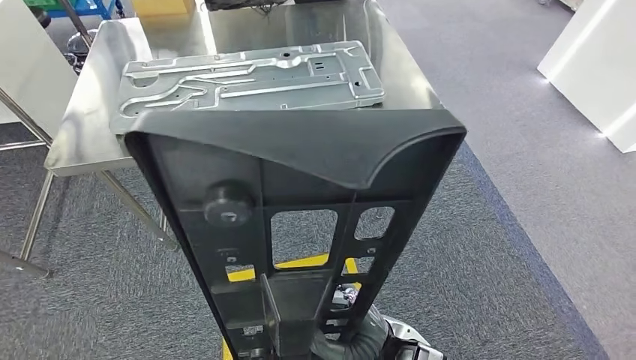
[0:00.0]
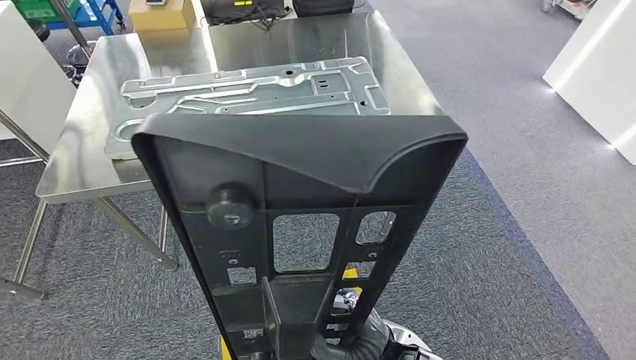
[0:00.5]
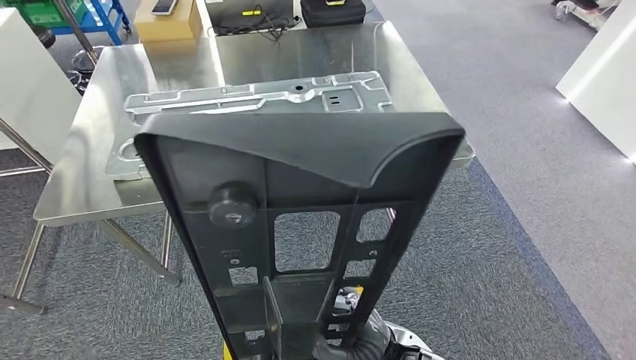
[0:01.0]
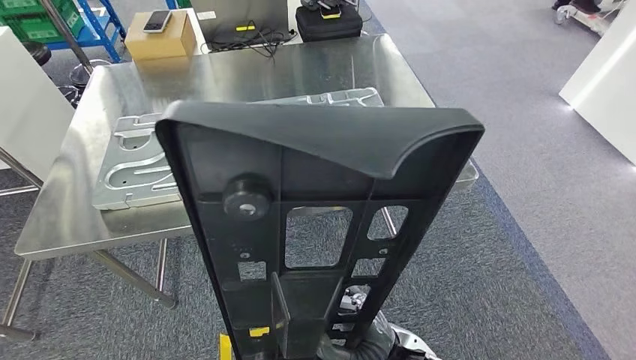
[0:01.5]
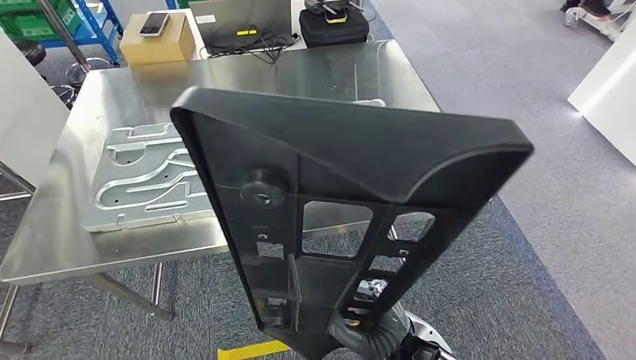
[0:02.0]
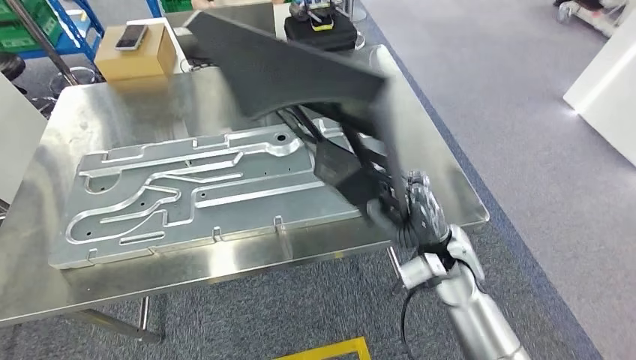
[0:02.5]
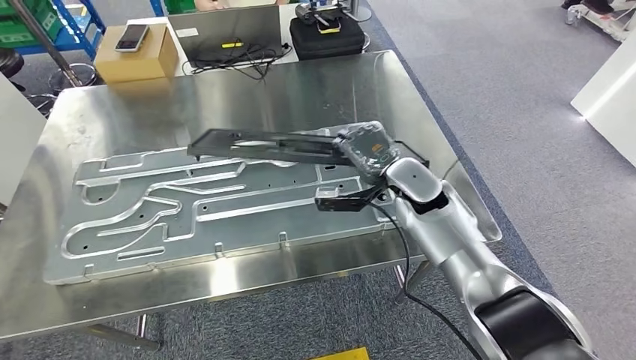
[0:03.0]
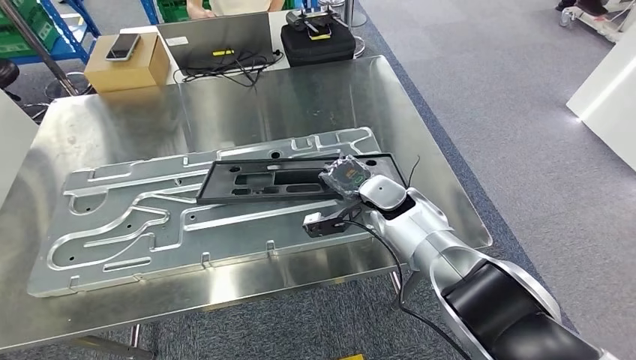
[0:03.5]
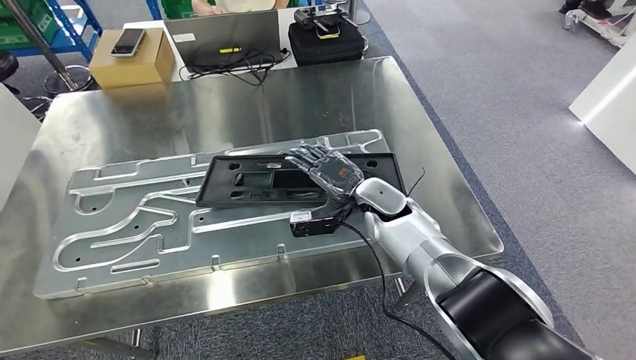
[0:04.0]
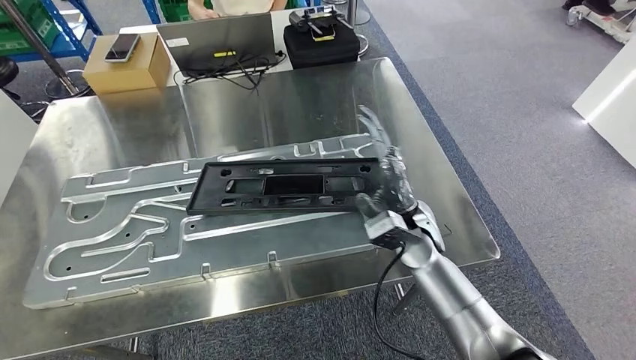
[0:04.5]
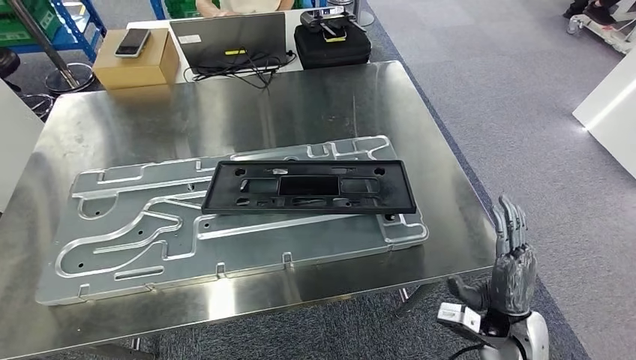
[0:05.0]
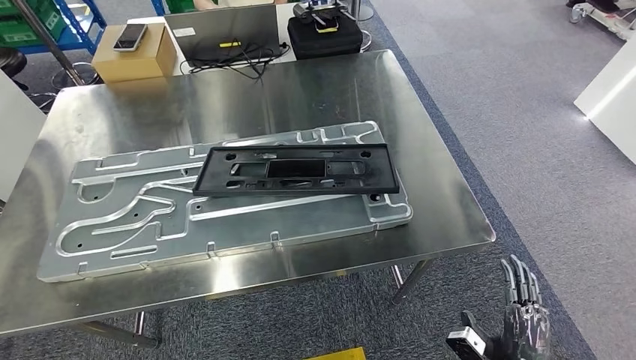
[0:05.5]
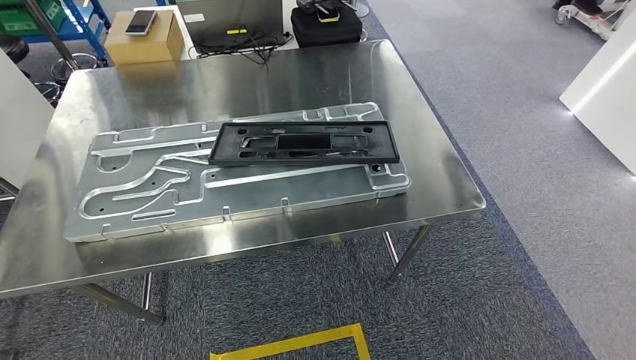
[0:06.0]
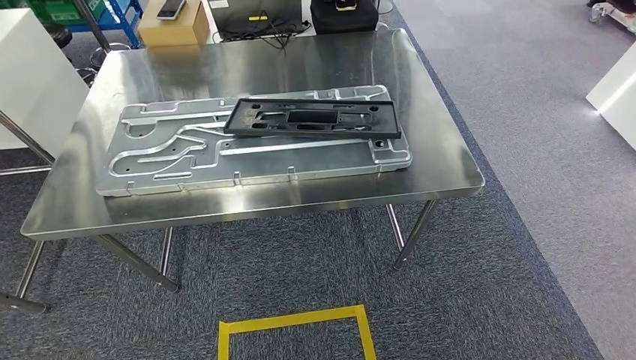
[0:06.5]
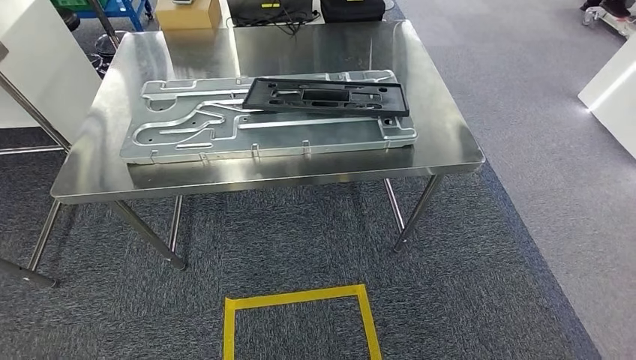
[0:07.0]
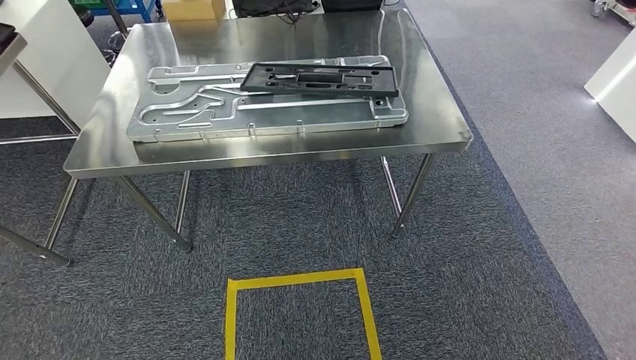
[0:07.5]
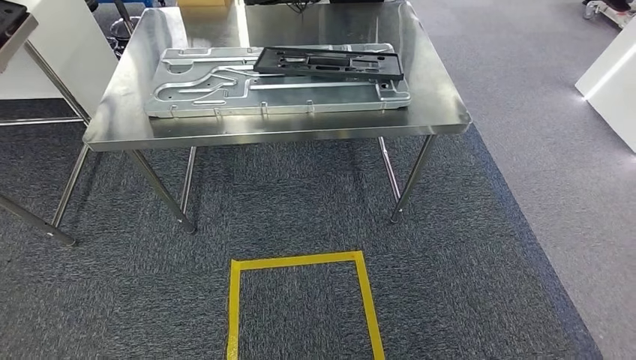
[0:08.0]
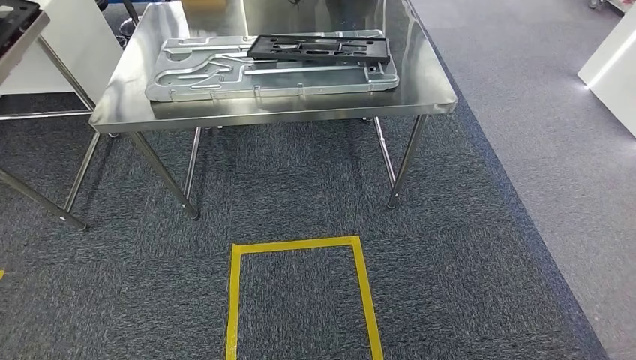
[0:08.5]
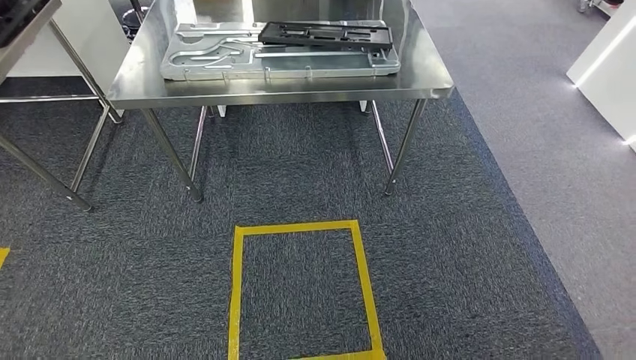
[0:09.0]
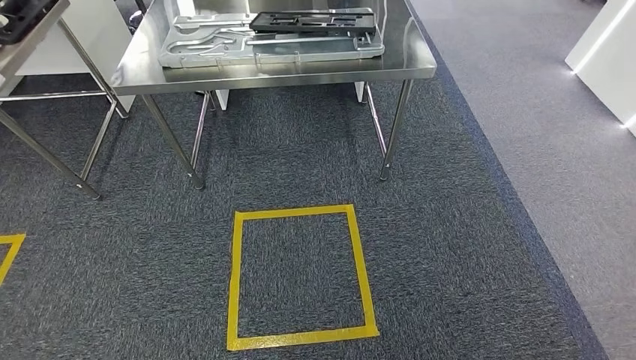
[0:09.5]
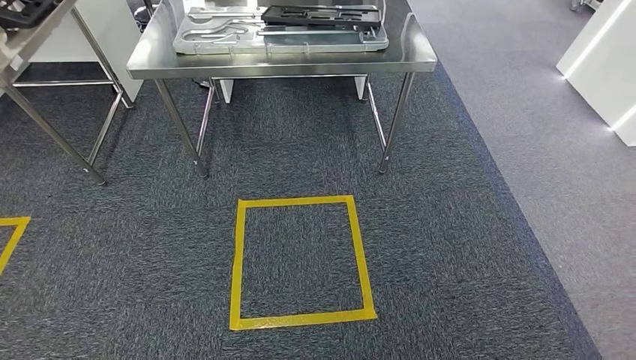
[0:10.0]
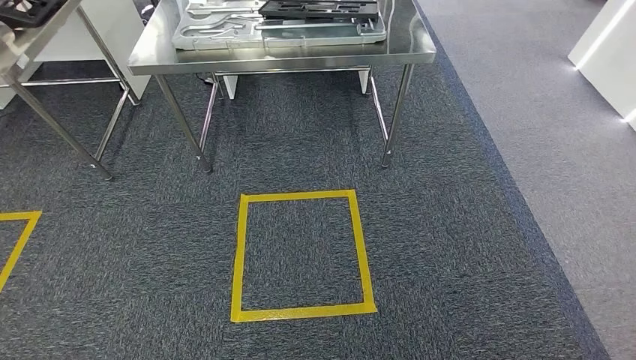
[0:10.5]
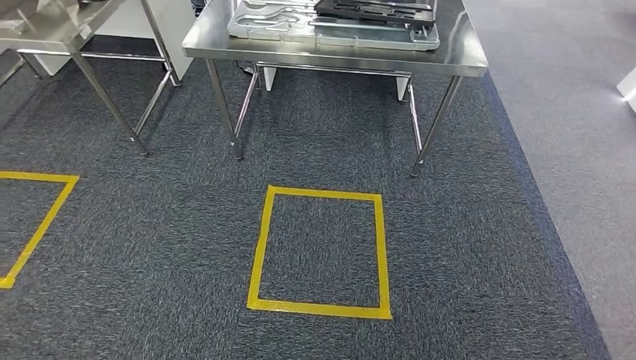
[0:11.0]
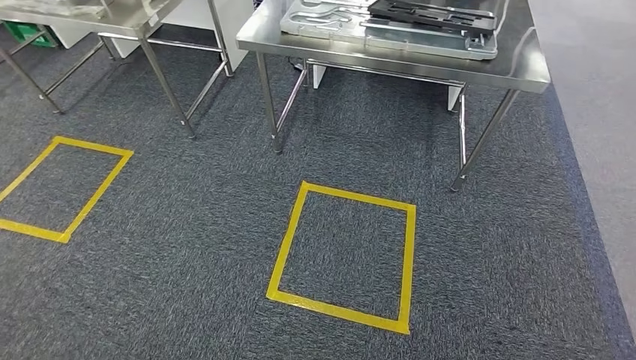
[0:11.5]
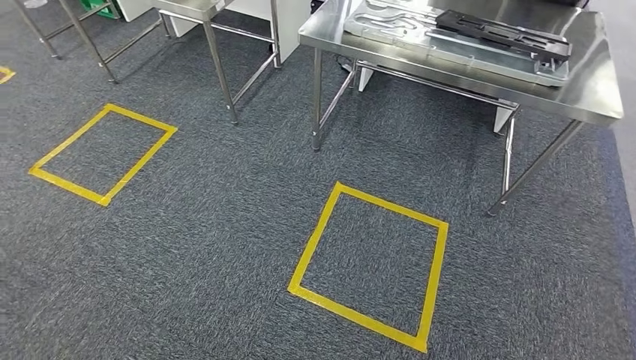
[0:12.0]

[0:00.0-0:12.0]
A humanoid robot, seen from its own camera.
Step, 0:00.0 to 0:05.5: Insert the large material into the corresponding slot on the workbench.

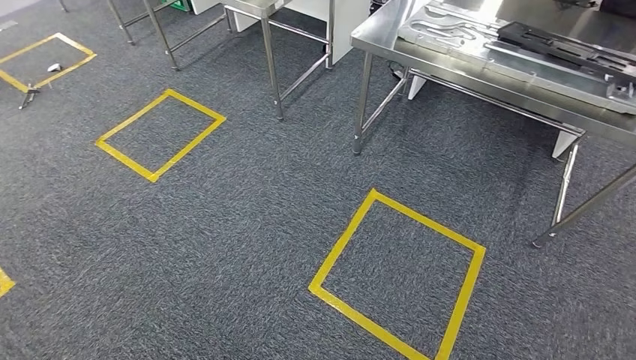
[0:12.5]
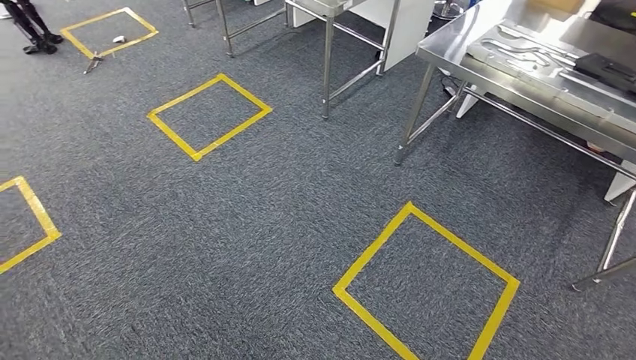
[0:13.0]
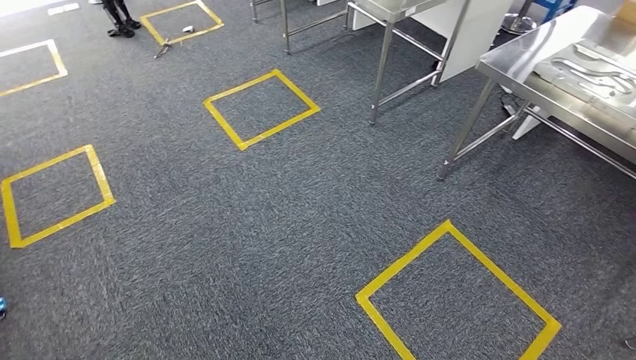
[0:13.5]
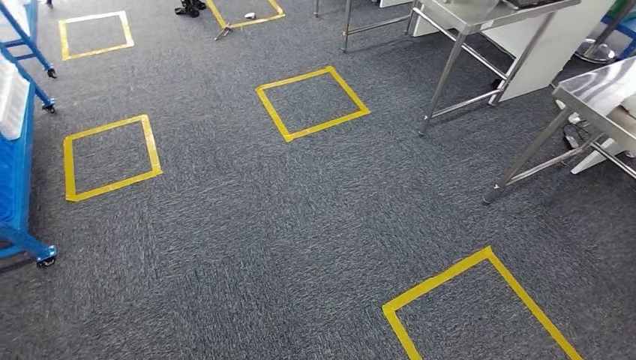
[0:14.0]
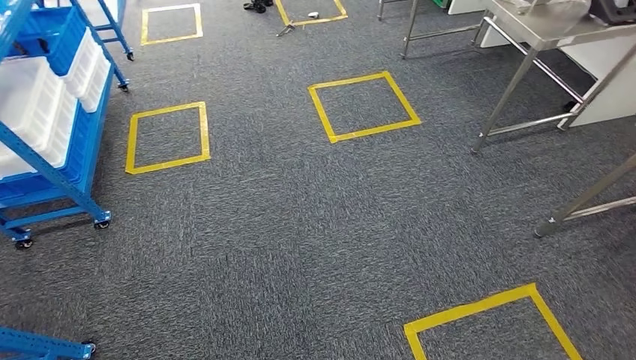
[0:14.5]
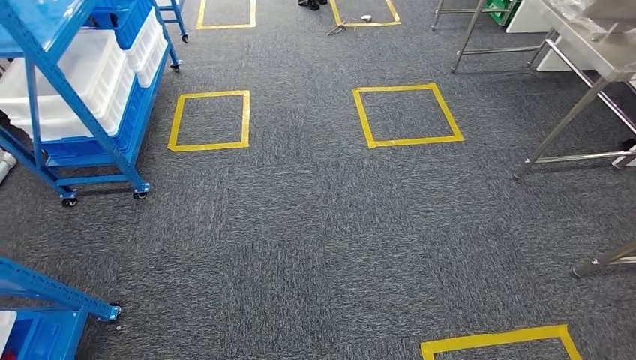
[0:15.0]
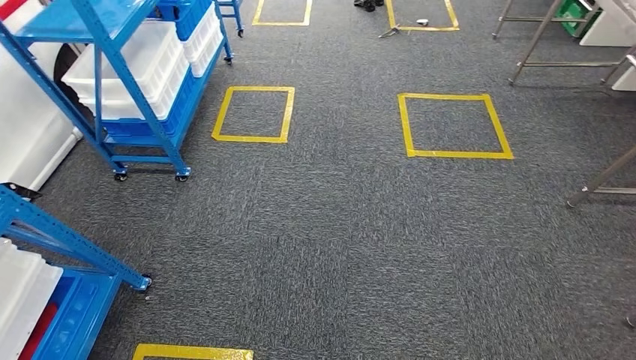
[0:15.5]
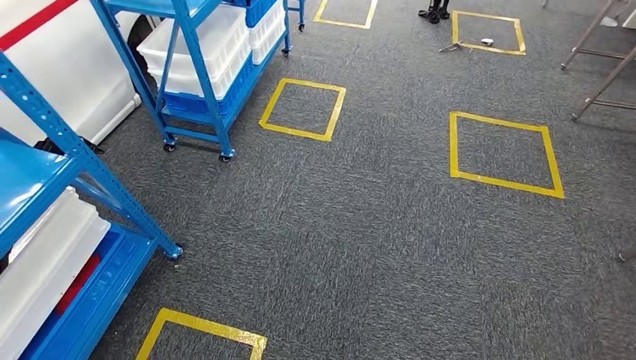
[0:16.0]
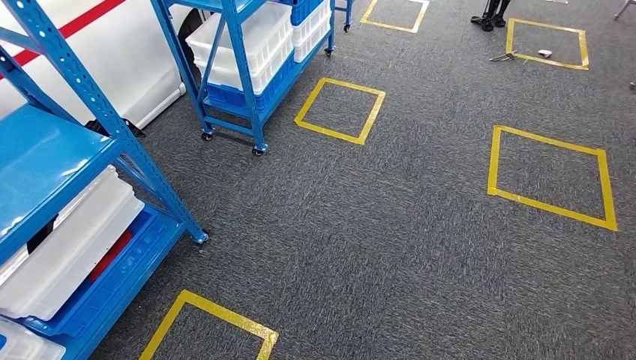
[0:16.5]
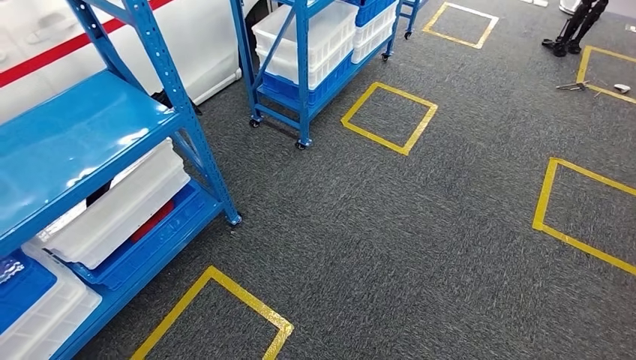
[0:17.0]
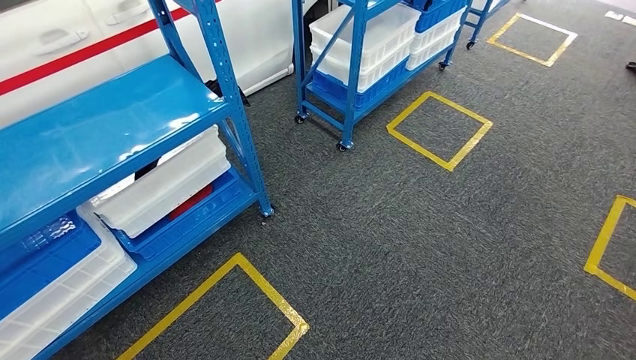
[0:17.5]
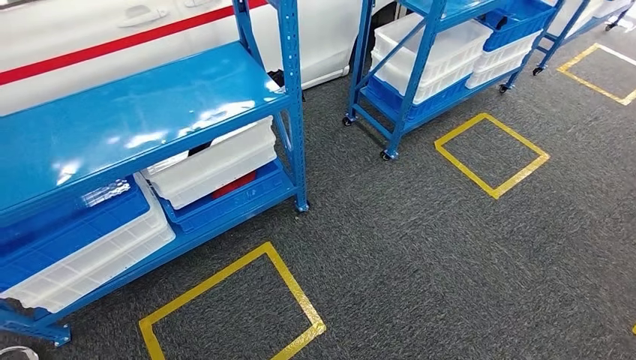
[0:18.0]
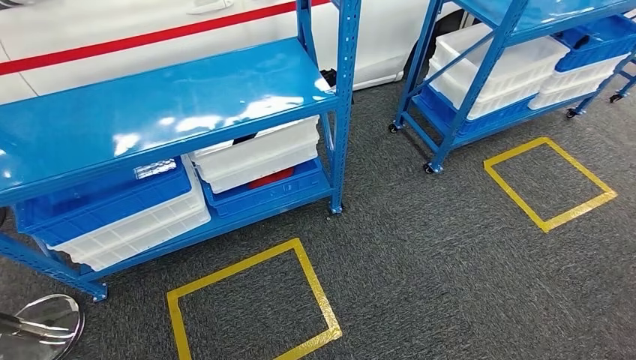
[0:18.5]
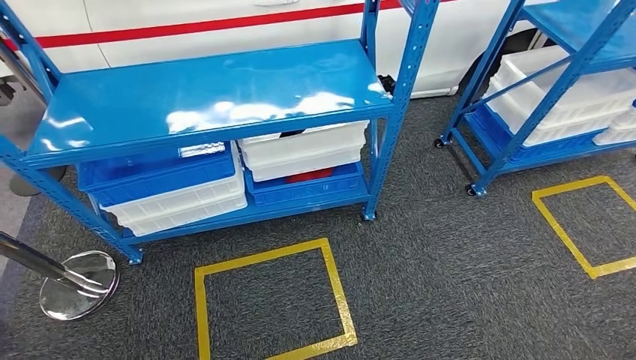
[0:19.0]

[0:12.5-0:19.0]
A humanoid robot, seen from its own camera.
Step, 0:12.5 to 0:19.0: Move to the initial position of the shelf.
